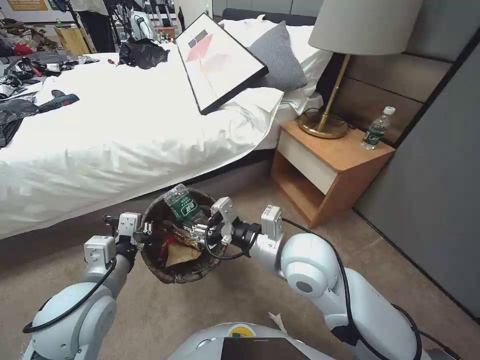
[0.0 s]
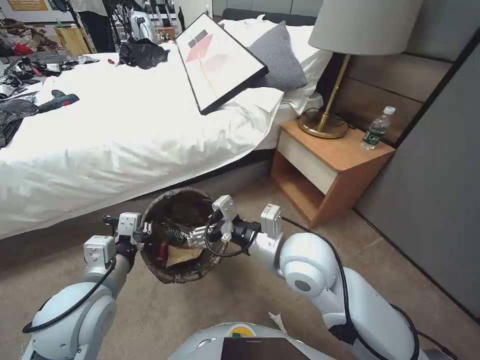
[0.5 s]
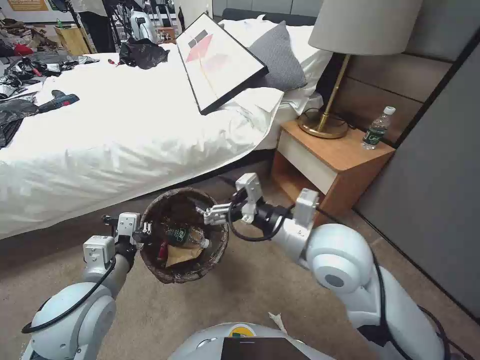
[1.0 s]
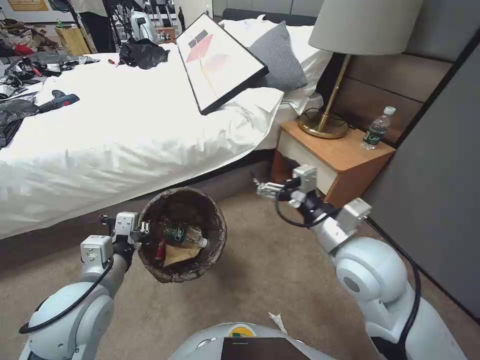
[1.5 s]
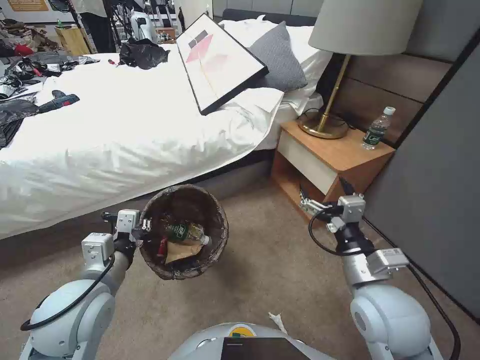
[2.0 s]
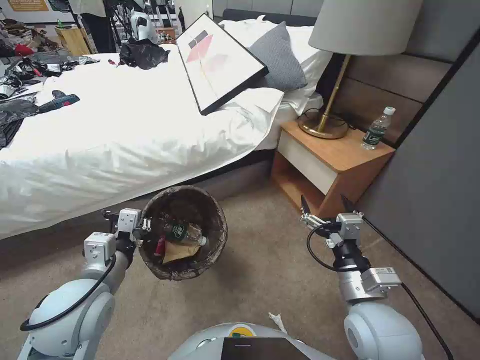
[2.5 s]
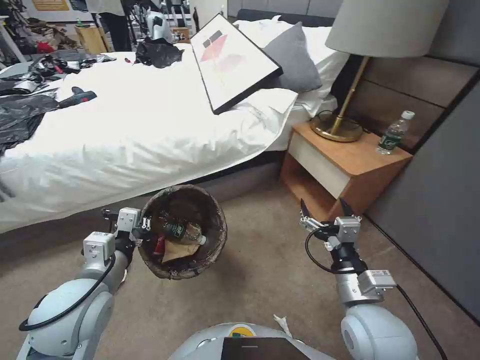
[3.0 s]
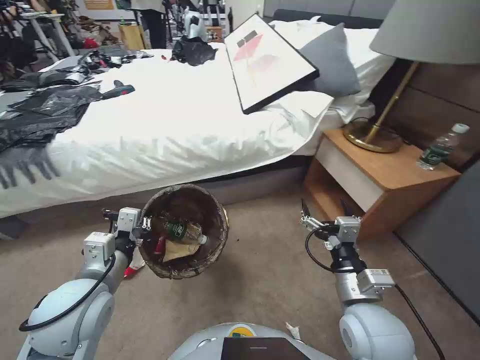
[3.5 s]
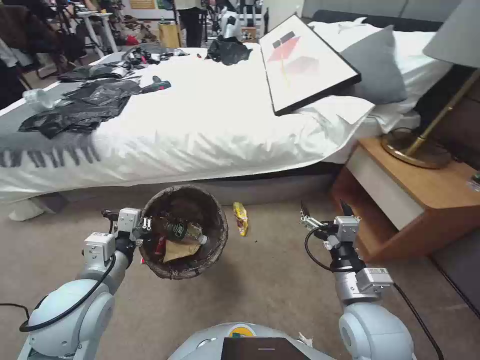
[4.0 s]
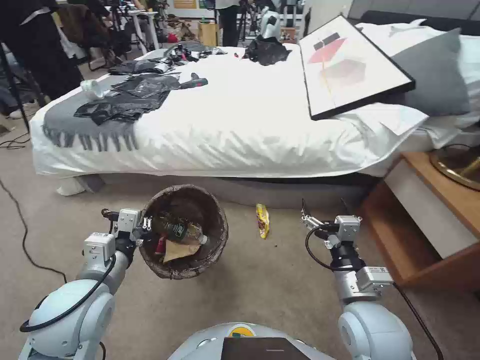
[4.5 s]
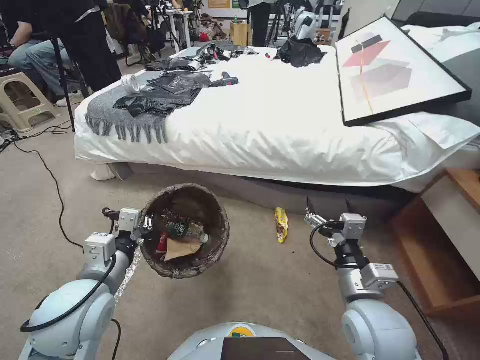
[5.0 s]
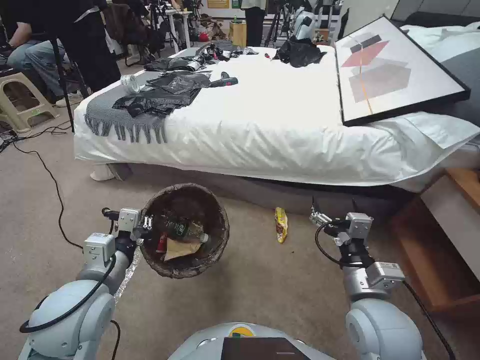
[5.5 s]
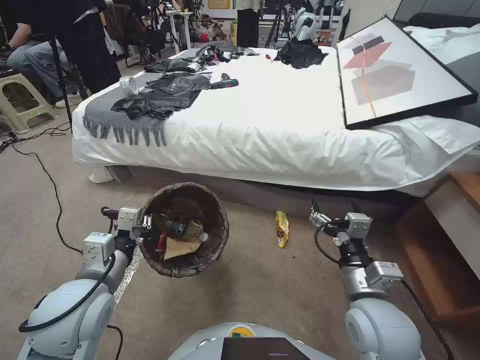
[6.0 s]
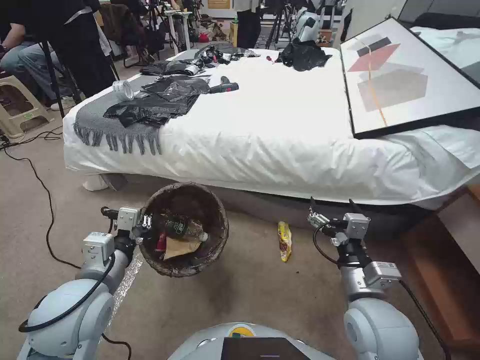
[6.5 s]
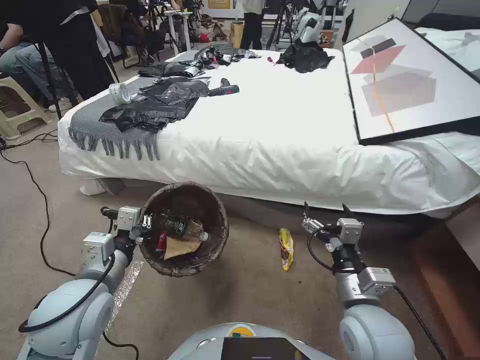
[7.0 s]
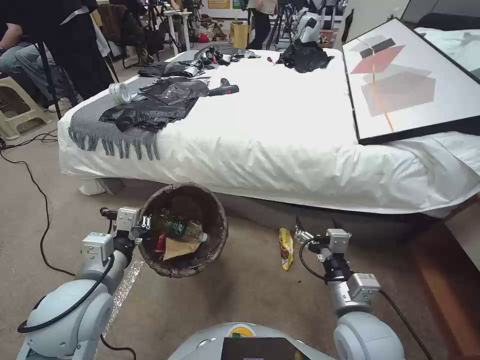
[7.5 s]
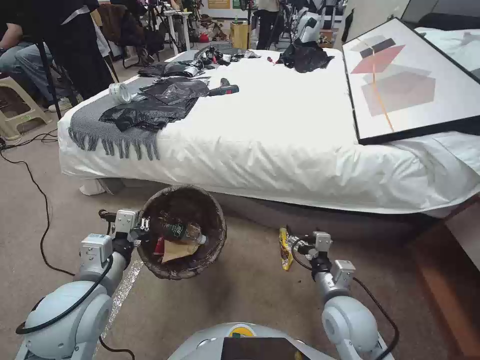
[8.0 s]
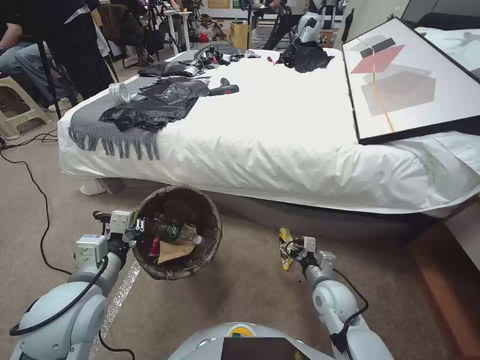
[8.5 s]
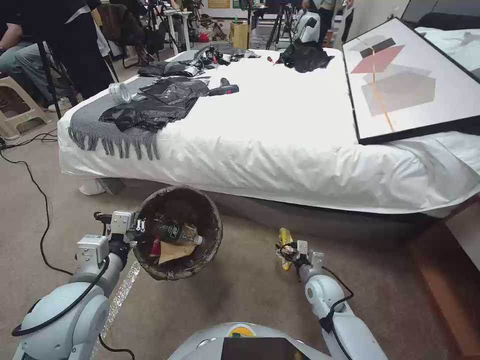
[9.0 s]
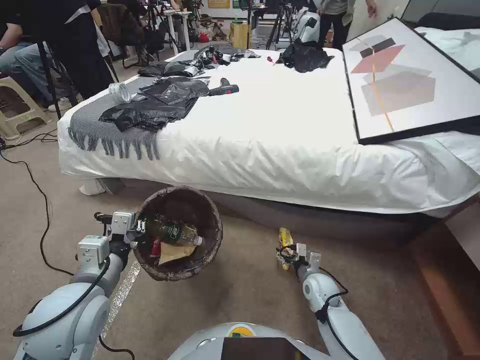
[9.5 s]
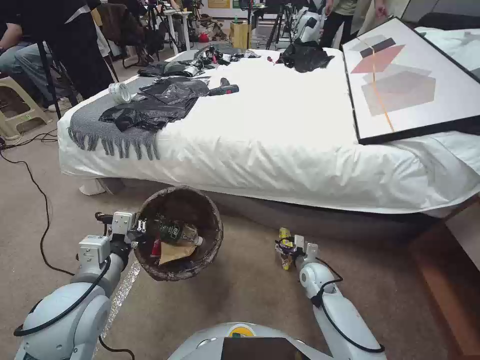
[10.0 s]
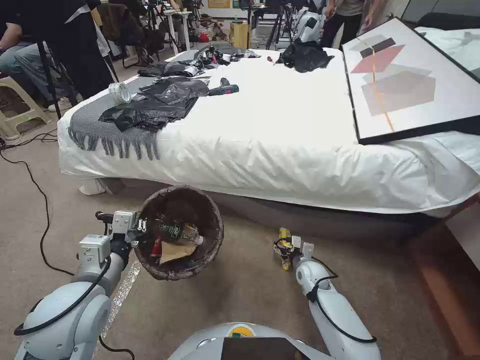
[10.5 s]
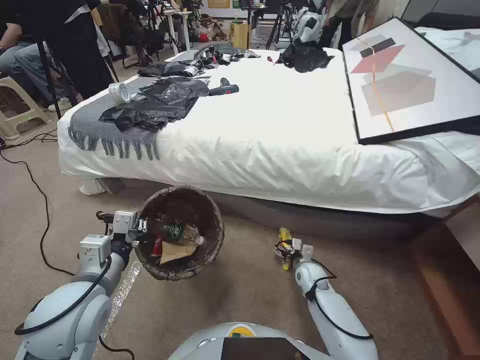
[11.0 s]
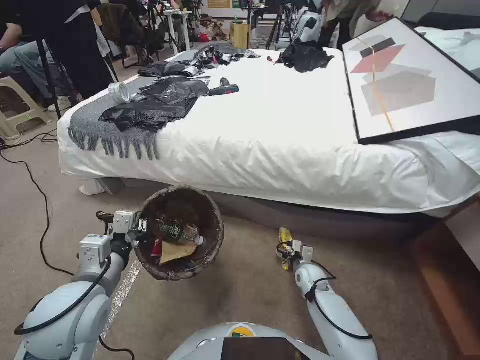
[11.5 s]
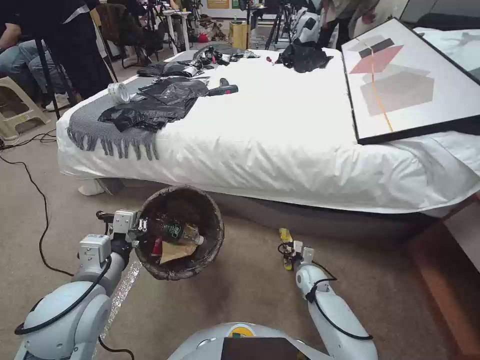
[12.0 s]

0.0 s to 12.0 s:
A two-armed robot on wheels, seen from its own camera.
Task of the whole recording: Pick up the trash bin, then pick up the garbage from the floor and place it into the trash bin.
0.0 to 2.0 s: The right gripper is displaced to the right and backward by about 15 cm, and opens up.
2.0 to 4.0 s: The right gripper shifts some 5 cm downward.
6.0 to 8.0 s: The right gripper moves downward, about 10 cm.
8.0 to 10.0 s: The right gripper moves downward and forward, approximately 20 cm.
10.0 to 12.0 s: The right gripper closes its fingers.

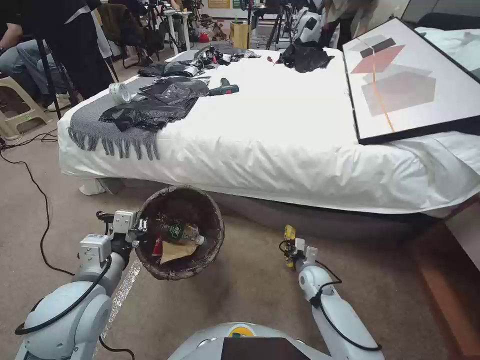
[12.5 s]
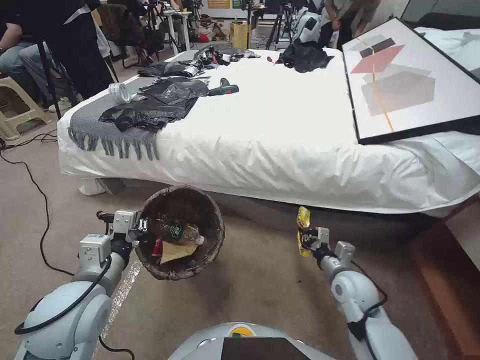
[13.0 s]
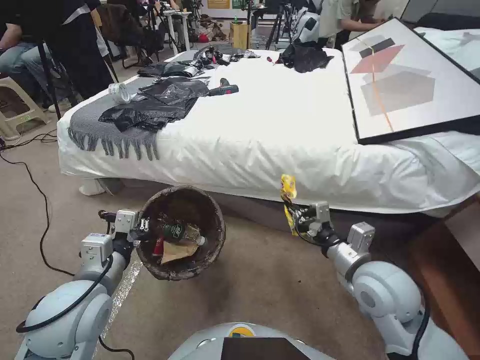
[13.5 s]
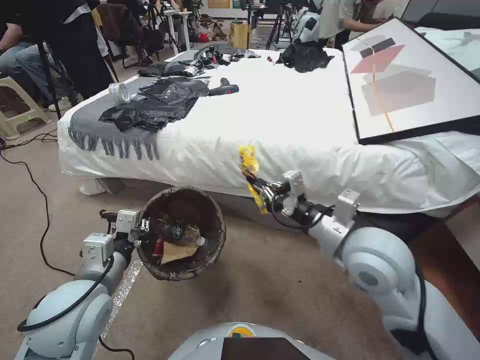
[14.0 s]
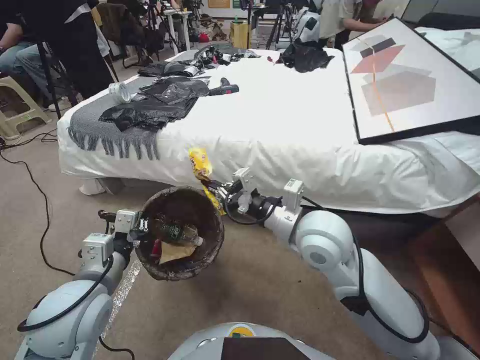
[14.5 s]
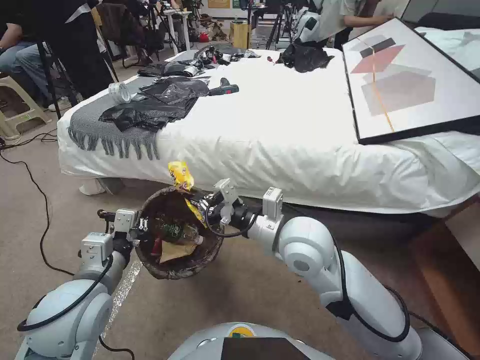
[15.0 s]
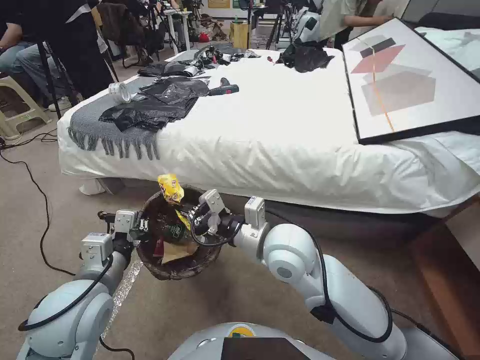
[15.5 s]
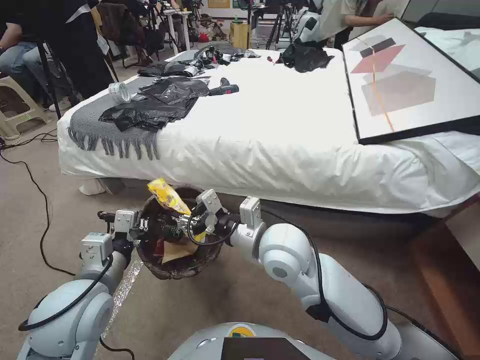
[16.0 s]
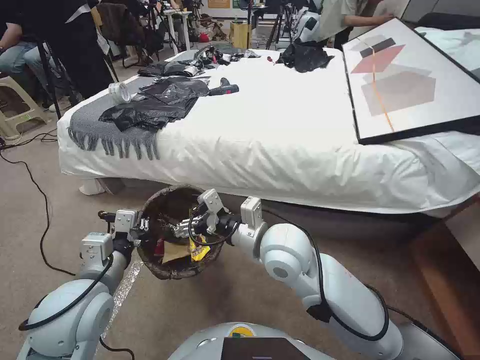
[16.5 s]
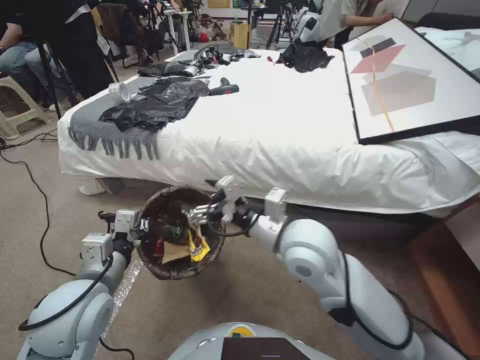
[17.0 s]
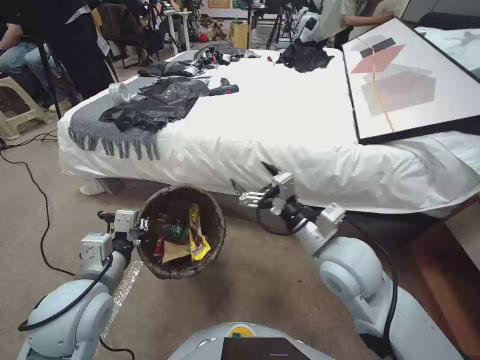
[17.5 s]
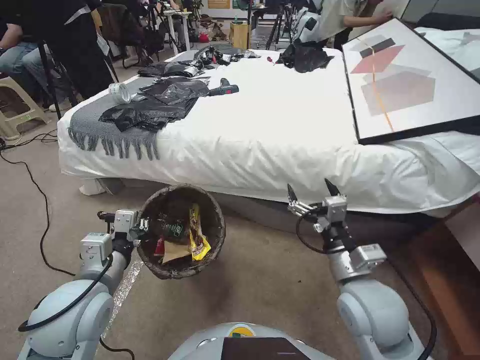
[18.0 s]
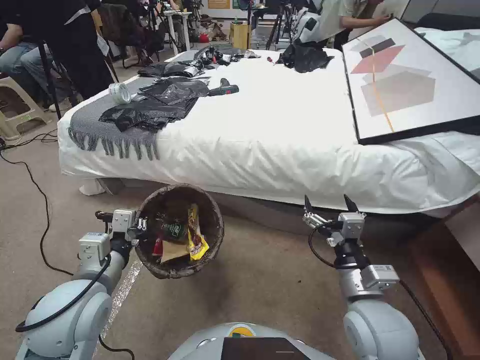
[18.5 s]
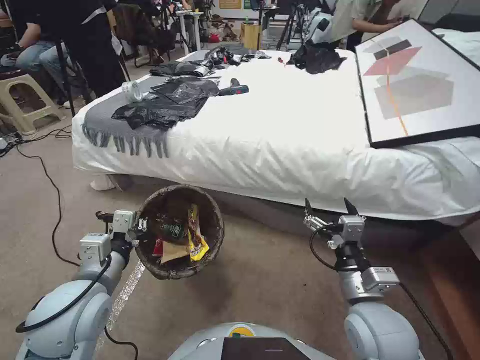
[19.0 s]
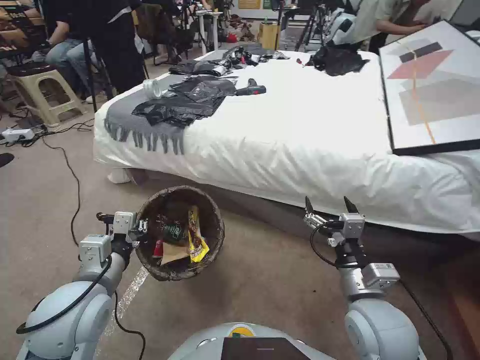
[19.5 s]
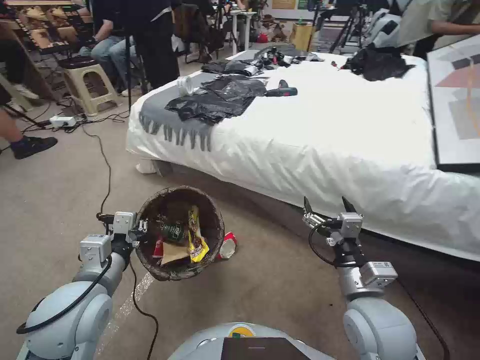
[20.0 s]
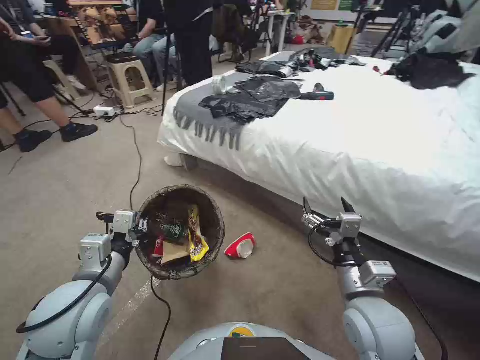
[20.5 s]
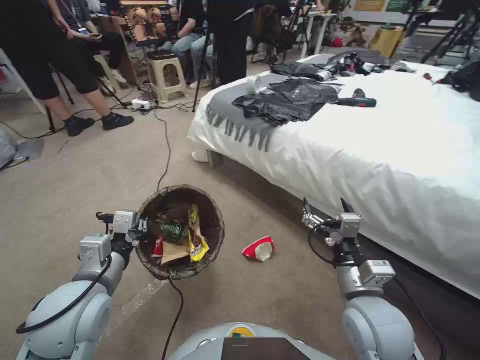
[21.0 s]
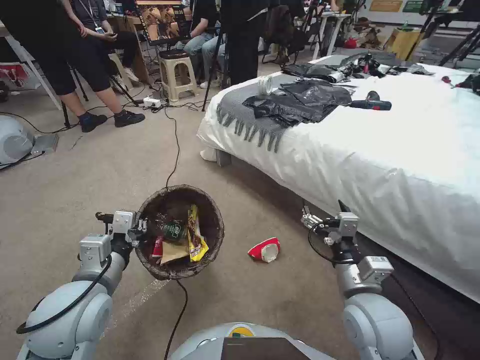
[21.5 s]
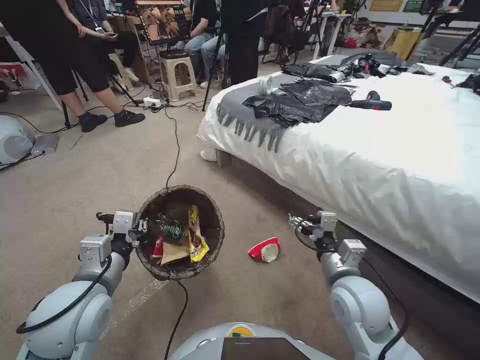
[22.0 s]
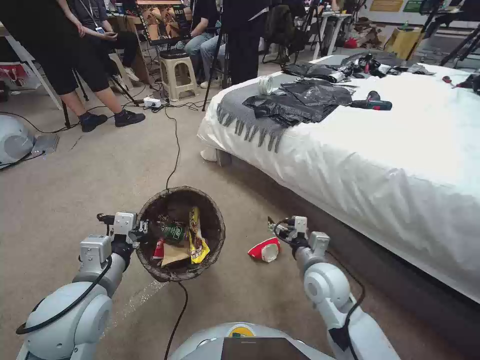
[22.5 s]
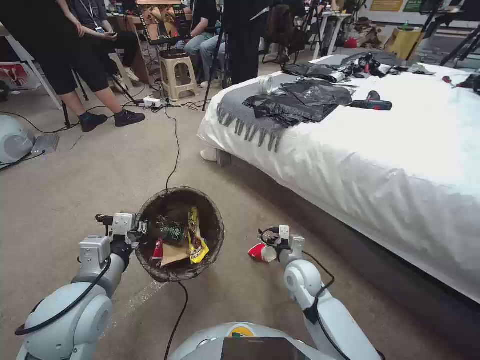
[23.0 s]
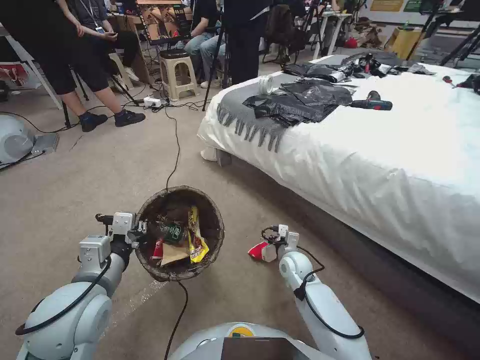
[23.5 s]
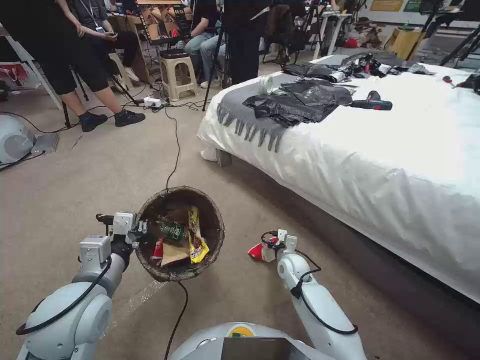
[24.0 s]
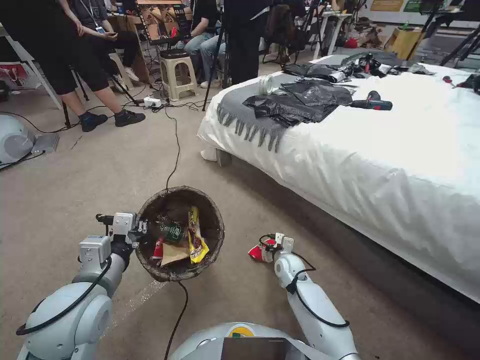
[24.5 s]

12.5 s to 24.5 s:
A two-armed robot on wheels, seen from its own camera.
Task of the whole recording: Pick up the trash bin, then pick up the garbage from the floor and place it into the trash bin.
12.5 to 14.5 s: The right gripper is displaced upward by approximately 35 cm.
14.5 to 16.5 s: The right gripper goes approximately 5 cm to the left, and opens its fingers.
16.5 to 18.5 s: The right gripper goes about 20 cm to the right, backward and downward.
20.5 to 22.5 s: The right gripper travels forward and downward by roughly 10 cm.
22.5 to 24.5 s: The right gripper is displaced downward and forward by approximately 20 cm.

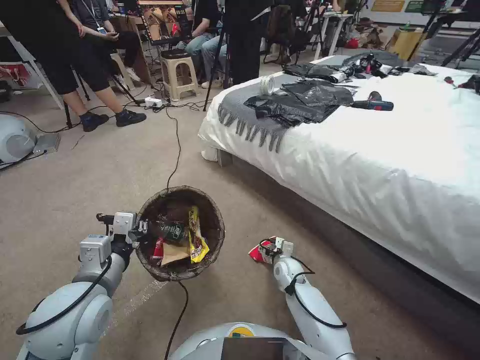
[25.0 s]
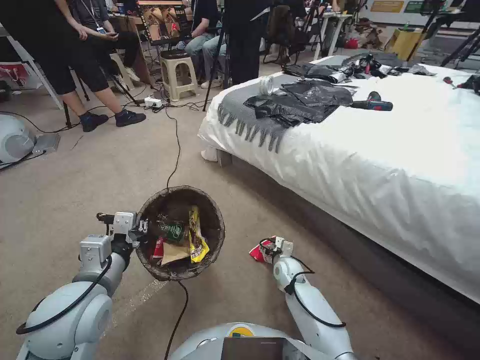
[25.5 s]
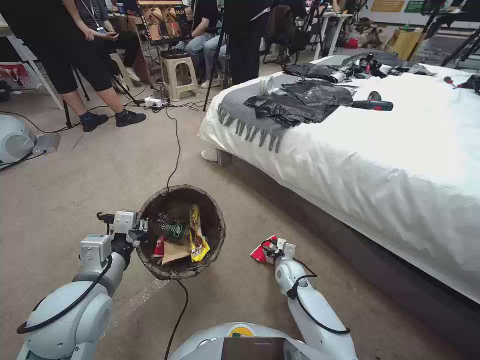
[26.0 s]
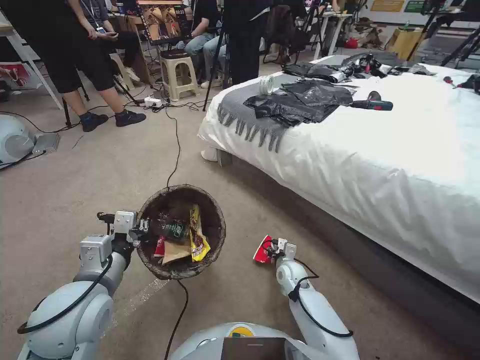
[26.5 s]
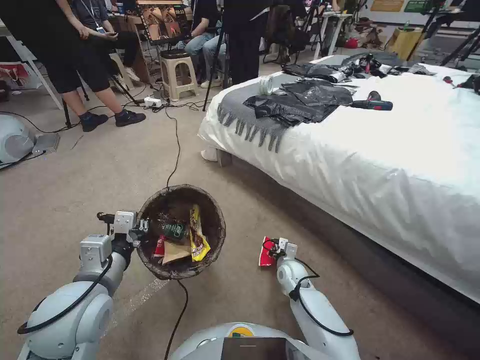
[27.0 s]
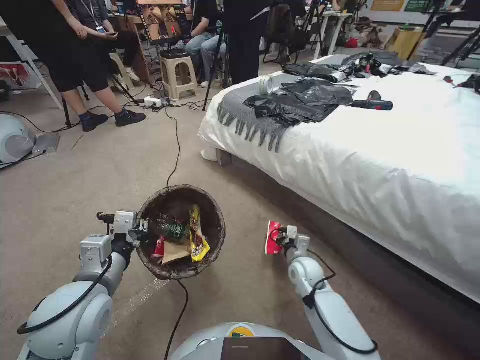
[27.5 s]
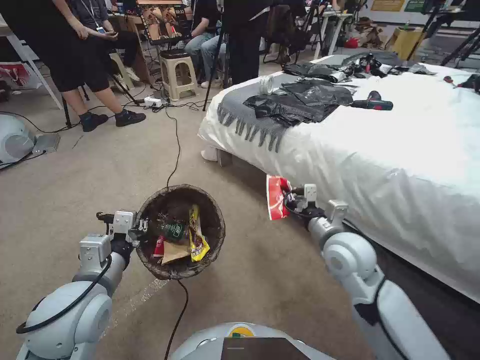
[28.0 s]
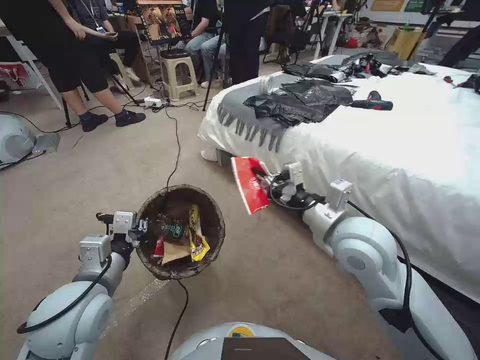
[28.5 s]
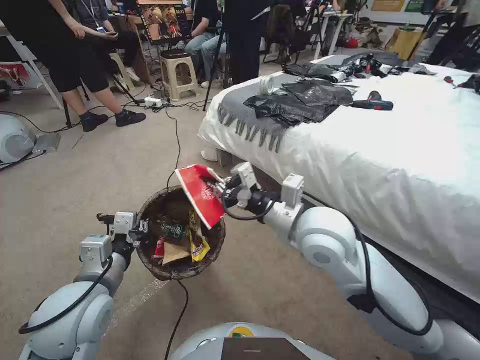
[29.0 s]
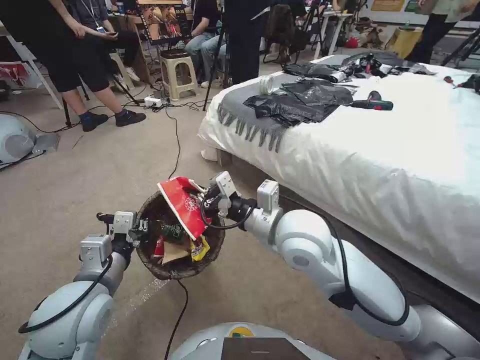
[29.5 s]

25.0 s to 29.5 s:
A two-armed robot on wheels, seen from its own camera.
Task of the whole recording: Pick up the trash bin, then pick up the garbage from the floor and place it into the trash bin.
25.0 to 27.0 s: The right gripper closes its fingers.
27.0 to 29.5 s: The right gripper moves upward, about 40 cm.
